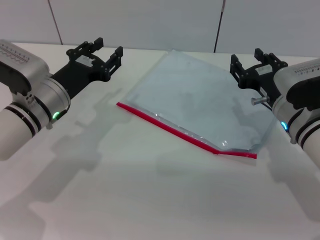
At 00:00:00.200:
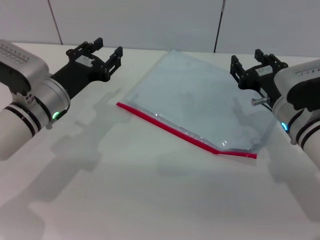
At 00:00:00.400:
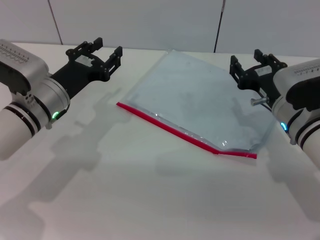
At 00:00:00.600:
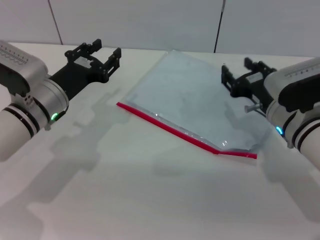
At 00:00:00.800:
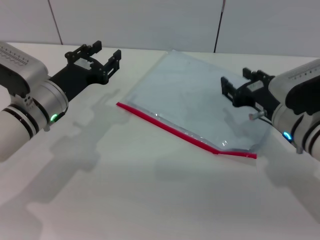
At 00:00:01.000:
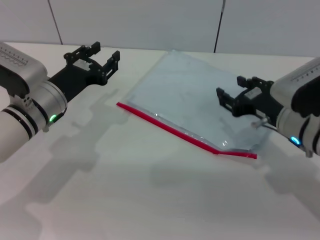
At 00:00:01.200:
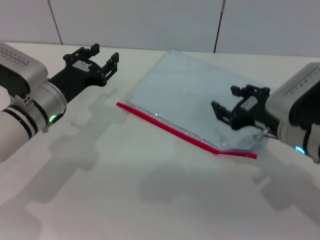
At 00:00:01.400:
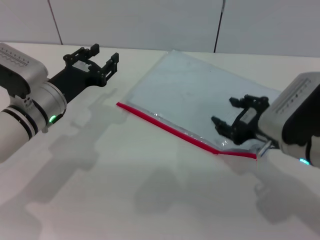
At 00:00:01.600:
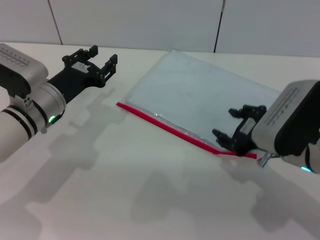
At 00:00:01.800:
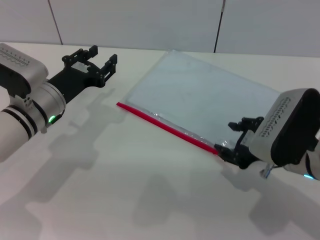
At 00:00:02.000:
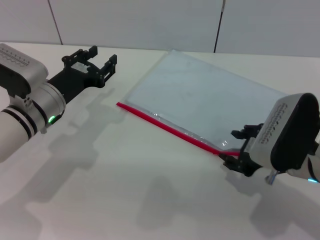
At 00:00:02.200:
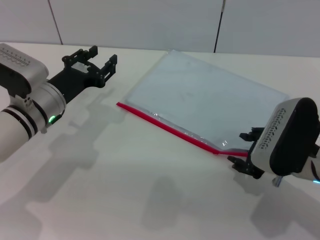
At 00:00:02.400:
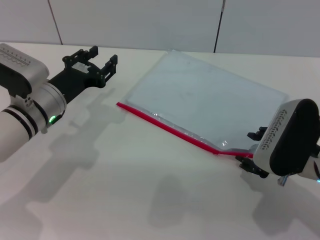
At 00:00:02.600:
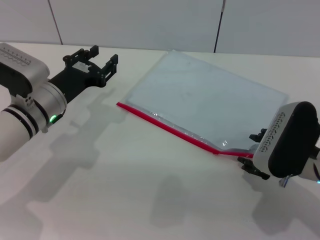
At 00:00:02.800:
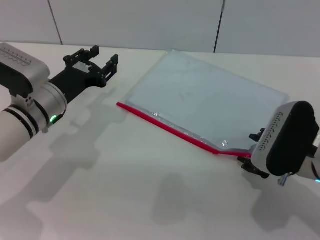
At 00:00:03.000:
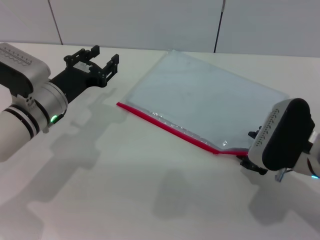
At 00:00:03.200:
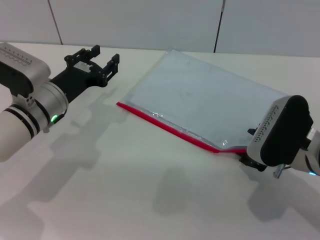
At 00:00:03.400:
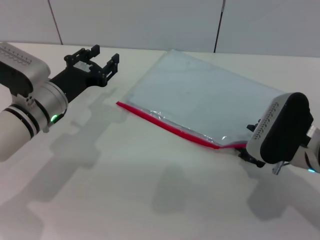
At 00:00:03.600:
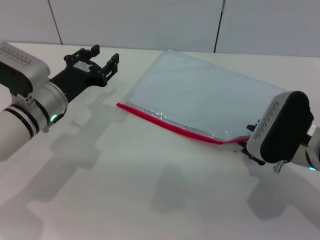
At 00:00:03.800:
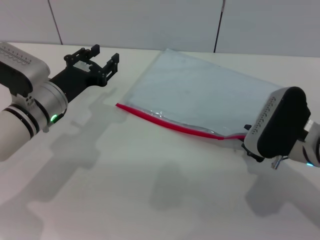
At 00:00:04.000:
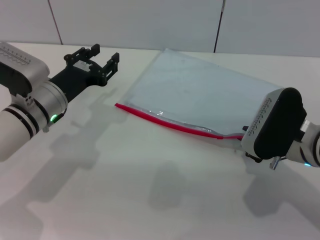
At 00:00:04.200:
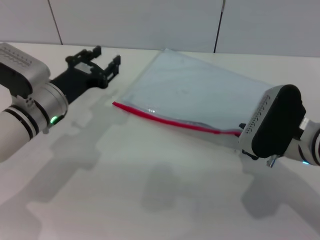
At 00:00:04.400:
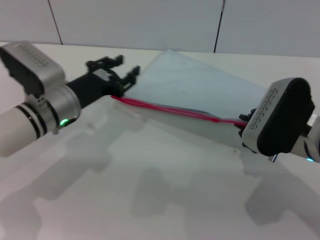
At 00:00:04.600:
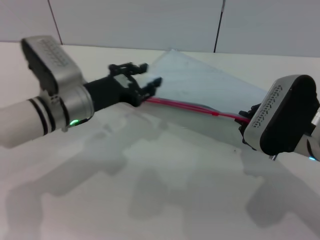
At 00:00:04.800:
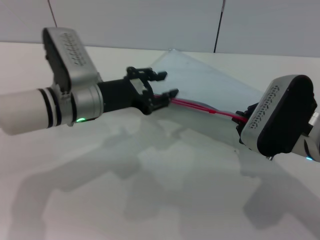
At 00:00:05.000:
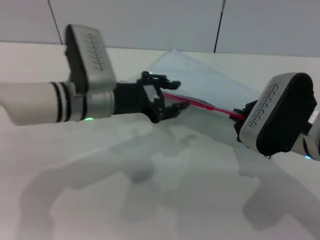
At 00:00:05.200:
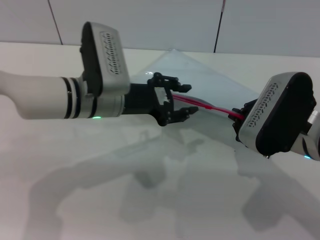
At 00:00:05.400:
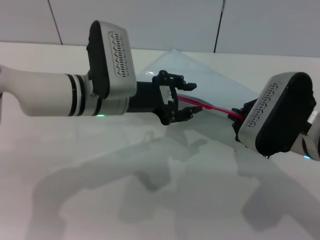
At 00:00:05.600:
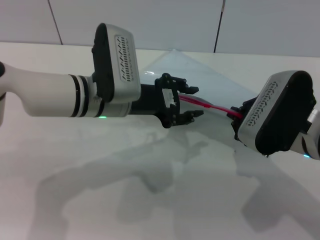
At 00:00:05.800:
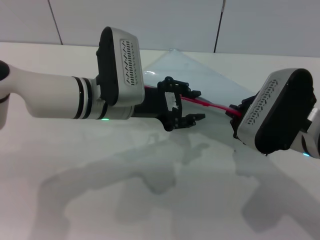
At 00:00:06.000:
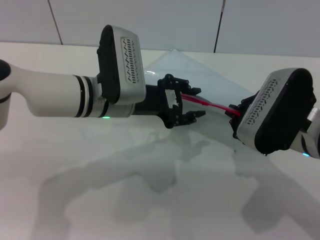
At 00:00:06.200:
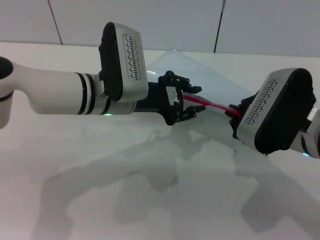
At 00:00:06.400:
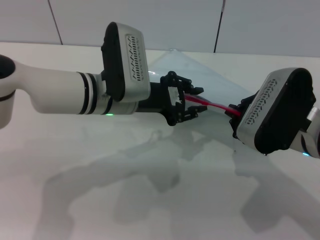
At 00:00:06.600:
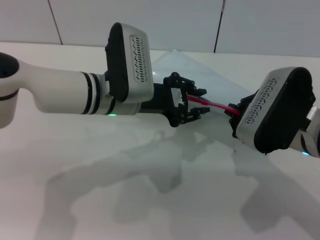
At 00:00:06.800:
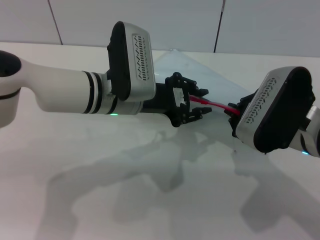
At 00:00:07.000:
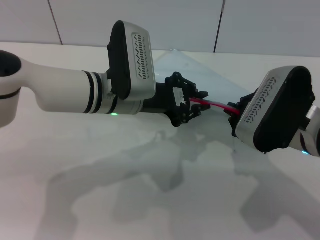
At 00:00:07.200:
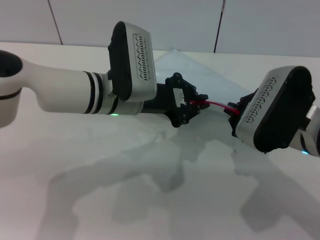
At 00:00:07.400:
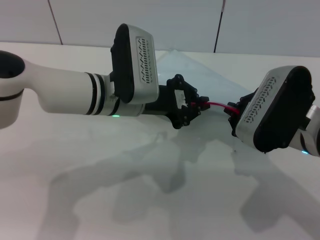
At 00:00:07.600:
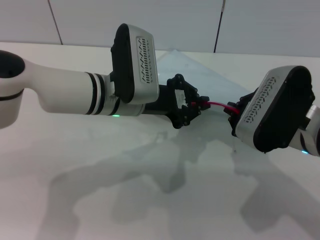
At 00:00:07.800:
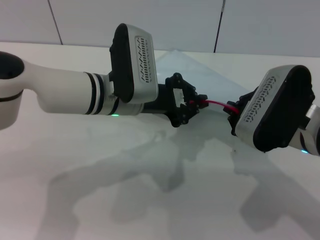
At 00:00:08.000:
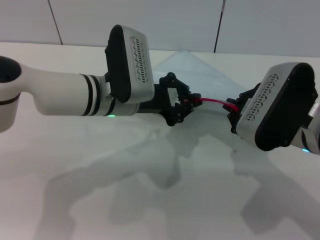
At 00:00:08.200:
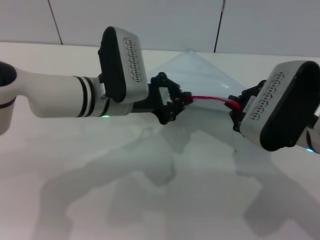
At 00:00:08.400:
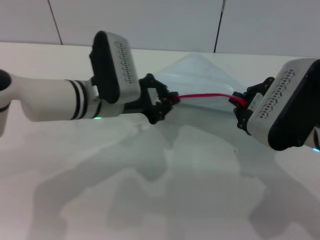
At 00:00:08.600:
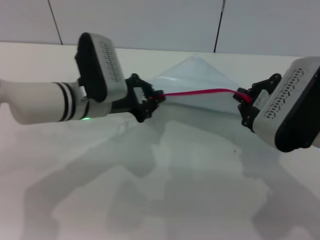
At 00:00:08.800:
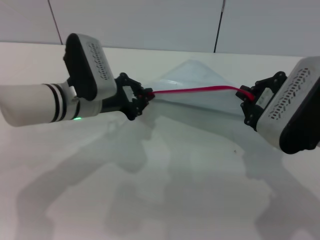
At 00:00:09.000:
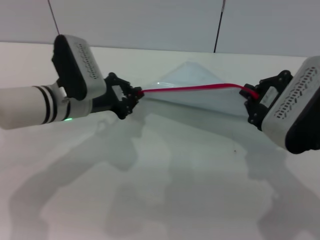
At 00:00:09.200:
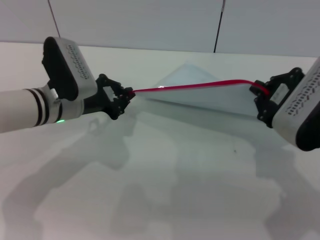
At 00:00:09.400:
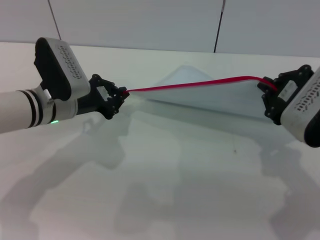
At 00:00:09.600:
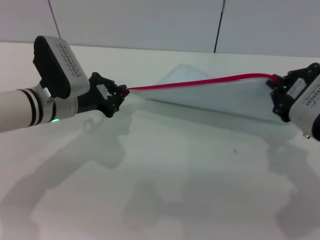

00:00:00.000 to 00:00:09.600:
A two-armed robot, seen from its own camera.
Step, 00:00:00.000 to 00:00:05.400: Pick up the transparent plastic bag with the right gripper.
00:00:00.000 to 00:00:01.600: The right gripper shifts some 5 cm backward.
00:00:01.600 to 00:00:03.200: There are only small adjustments of the grippers.
00:00:03.200 to 00:00:04.800: The right gripper closes up, while the left gripper changes place by some 5 cm.
00:00:04.800 to 00:00:06.400: The left gripper heads to the right, covering about 5 cm.
00:00:06.400 to 00:00:08.000: The left gripper closes its fingers.
00:00:08.000 to 00:00:09.600: The right gripper moves approximately 5 cm; the left gripper is displaced to the left by some 10 cm.

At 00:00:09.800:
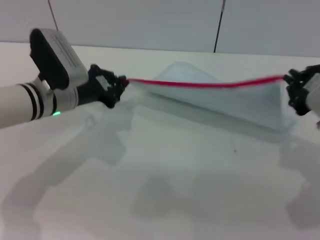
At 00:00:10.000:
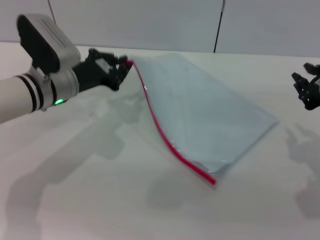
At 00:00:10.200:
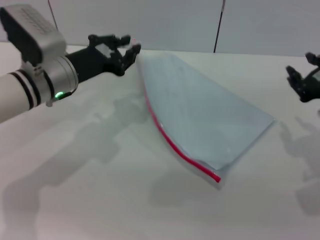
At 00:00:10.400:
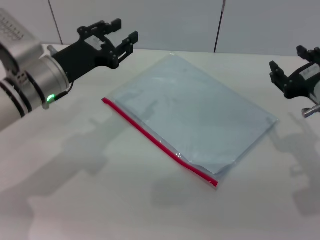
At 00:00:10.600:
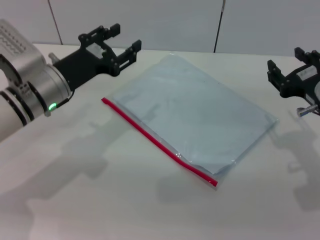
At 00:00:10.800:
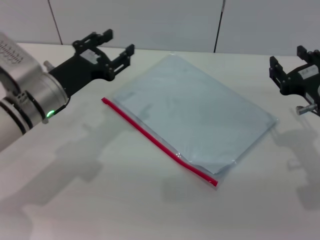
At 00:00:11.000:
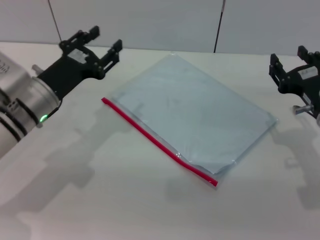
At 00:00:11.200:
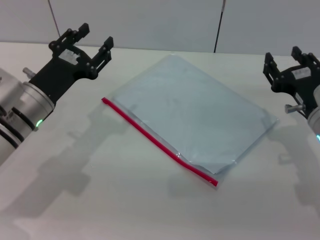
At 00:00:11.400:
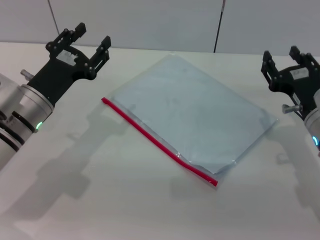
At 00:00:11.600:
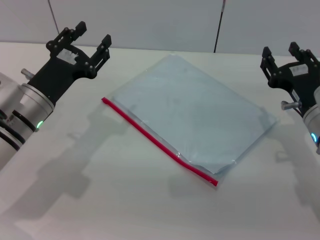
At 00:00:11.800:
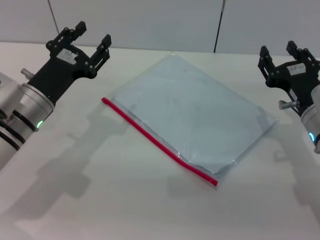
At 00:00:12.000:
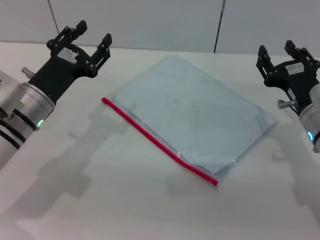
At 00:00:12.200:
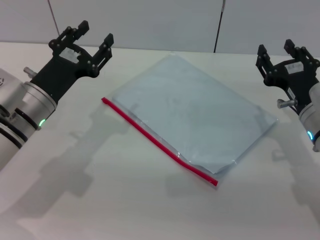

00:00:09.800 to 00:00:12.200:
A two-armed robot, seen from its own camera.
Step, 00:00:10.200 to 00:00:10.600: Place the transparent plastic bag.
00:00:09.800 to 00:00:11.000: The right gripper goes roughly 10 cm downward, and opens, while the left gripper opens.
00:00:11.000 to 00:00:12.200: There are only small adjustments of the grippers.
